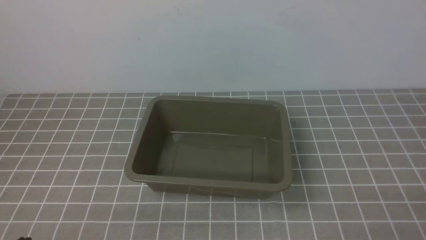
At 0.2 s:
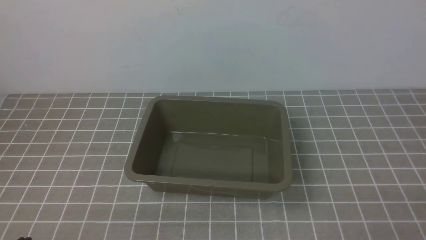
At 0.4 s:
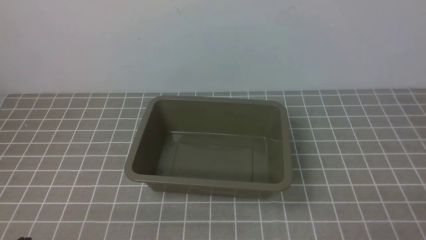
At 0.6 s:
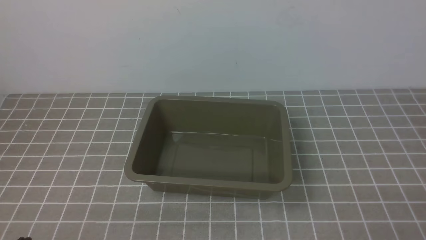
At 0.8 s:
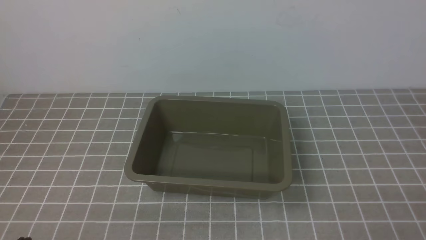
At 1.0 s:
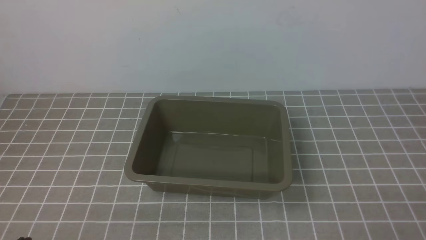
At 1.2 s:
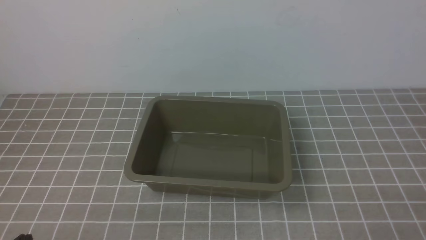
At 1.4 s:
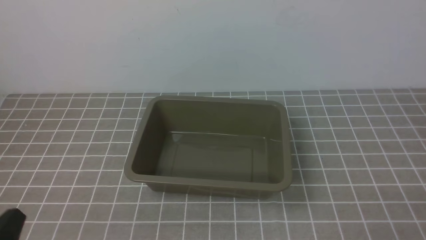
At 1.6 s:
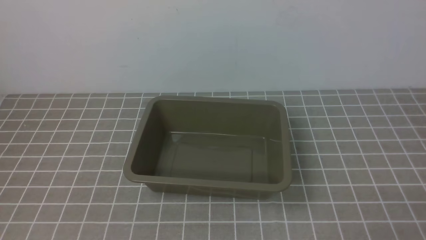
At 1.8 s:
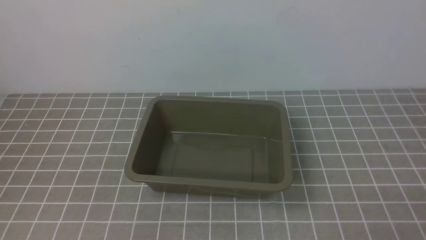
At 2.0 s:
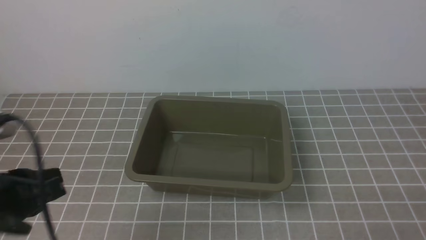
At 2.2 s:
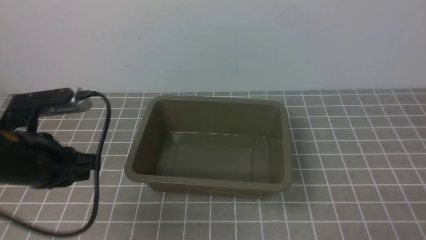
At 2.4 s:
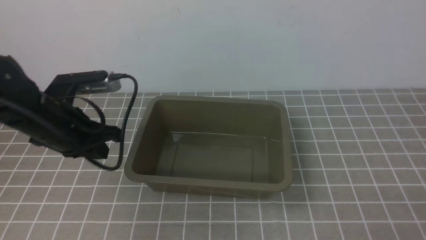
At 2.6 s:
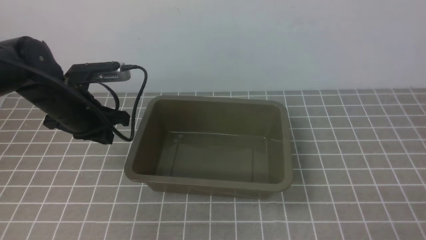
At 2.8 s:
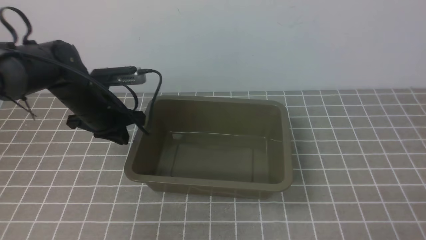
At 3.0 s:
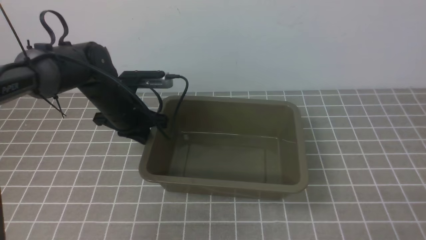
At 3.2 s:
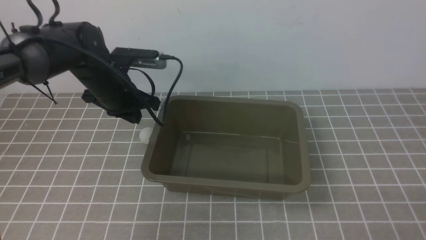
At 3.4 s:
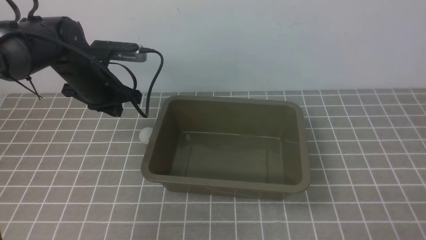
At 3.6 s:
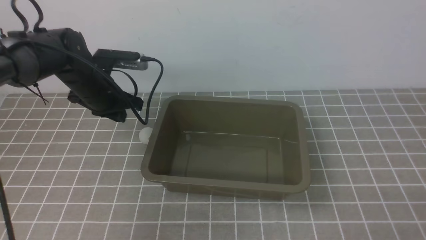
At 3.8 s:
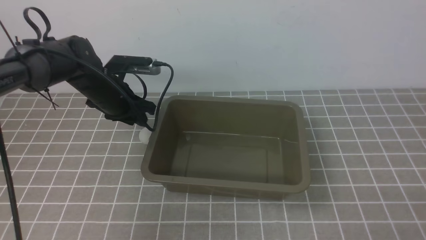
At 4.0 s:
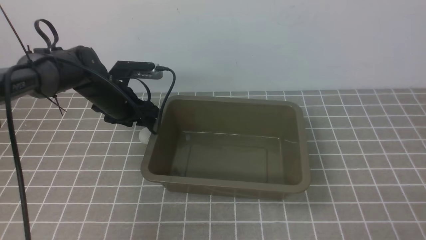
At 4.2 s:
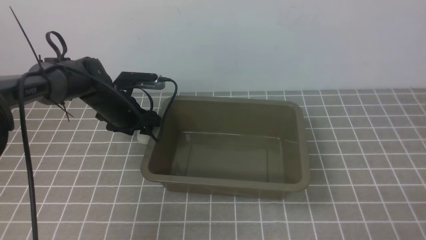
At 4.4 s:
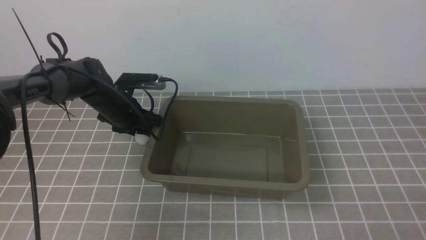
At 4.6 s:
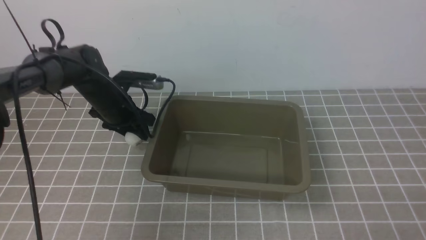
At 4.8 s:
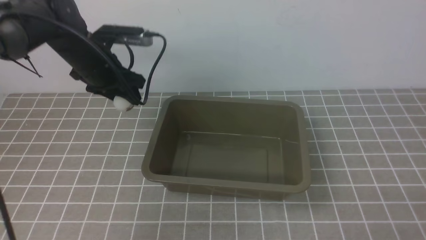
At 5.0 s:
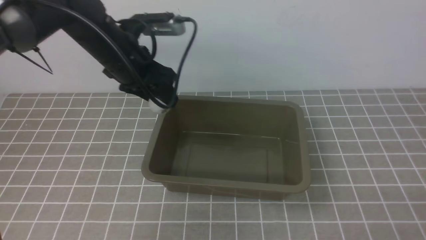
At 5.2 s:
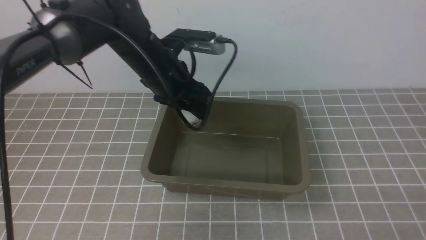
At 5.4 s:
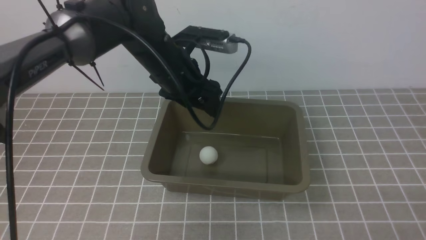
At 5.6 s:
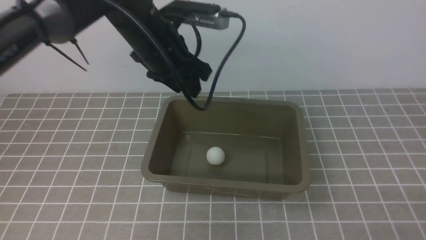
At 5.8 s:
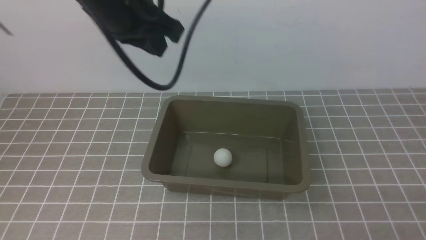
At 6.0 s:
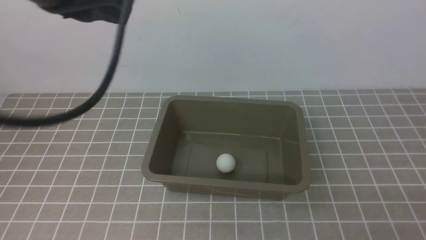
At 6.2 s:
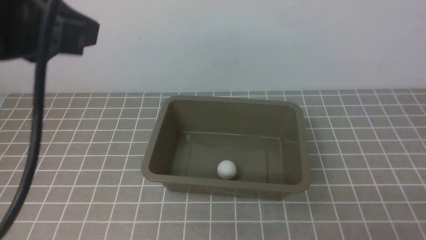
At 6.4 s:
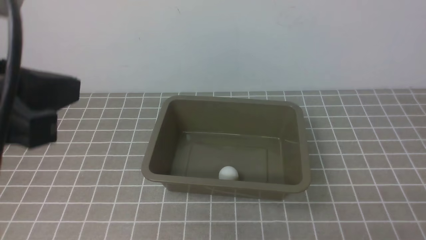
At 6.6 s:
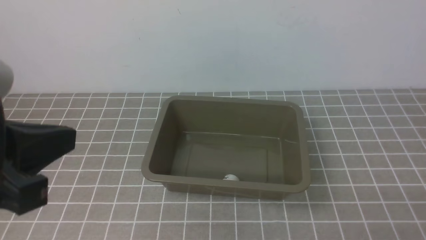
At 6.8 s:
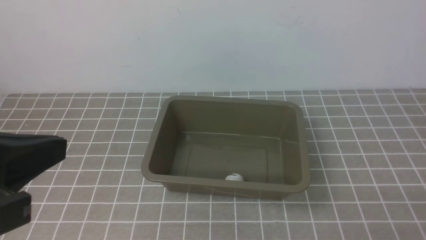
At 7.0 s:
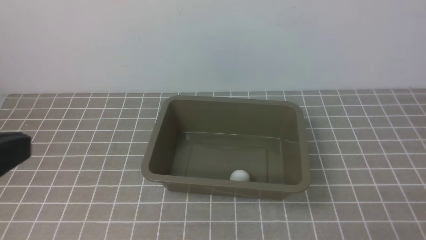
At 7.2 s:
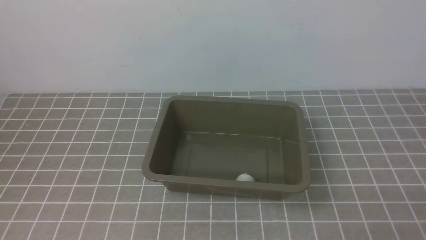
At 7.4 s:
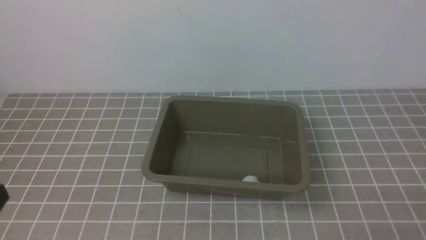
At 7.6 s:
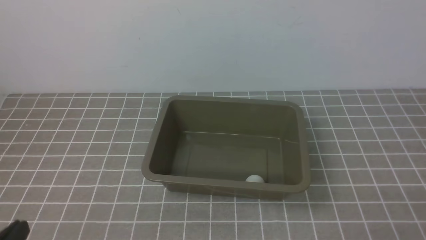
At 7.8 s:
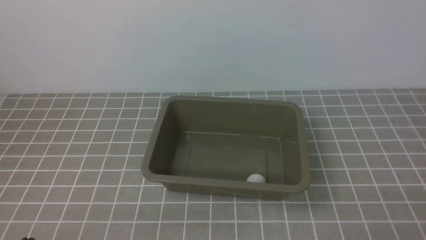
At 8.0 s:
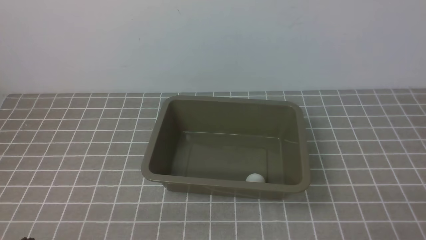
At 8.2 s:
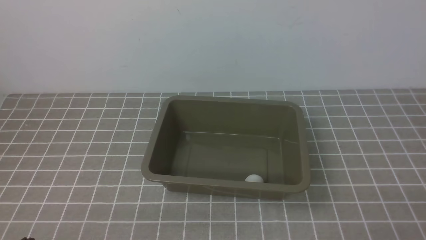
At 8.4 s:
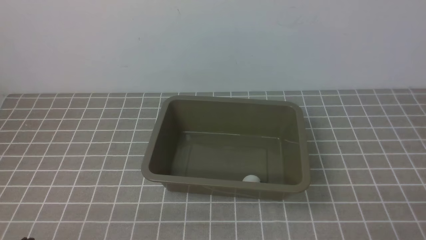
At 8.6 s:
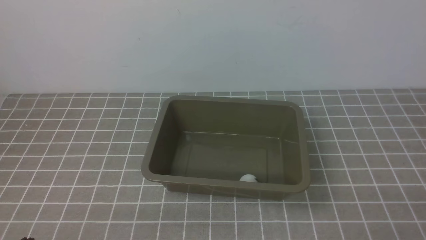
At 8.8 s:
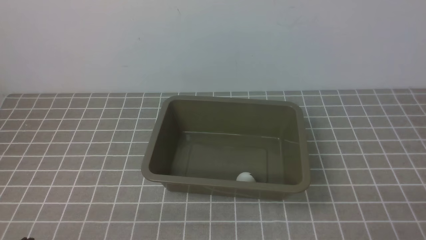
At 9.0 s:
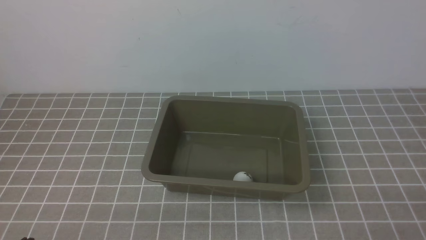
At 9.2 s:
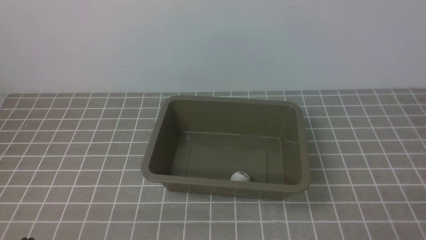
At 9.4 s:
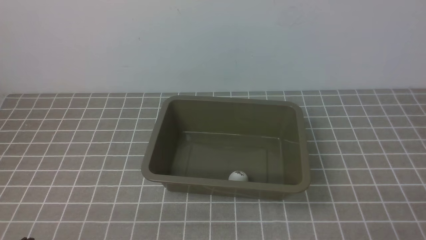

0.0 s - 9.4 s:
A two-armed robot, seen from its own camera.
Step, 0.0 s - 4.6 s: use the left arm to clamp the table tennis ball closest to it.
Step, 4.8 s - 5.4 s: use the left arm to put the table tennis ball into the box.
1.6 s - 3.2 s: The left gripper travels forward by about 35 cm.
3.2 s - 4.8 s: The left gripper reaches about 5 cm downward, then returns, and opens up.
4.8 s - 6.2 s: The left gripper goes about 35 cm upward and backward, and closes its fingers.
6.2 s - 7.8 s: The left gripper heads downward and backward, covering approximately 30 cm.

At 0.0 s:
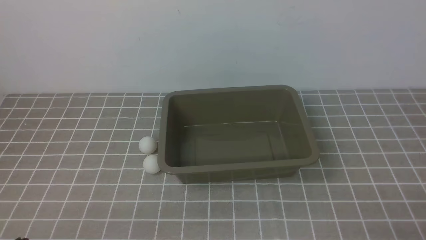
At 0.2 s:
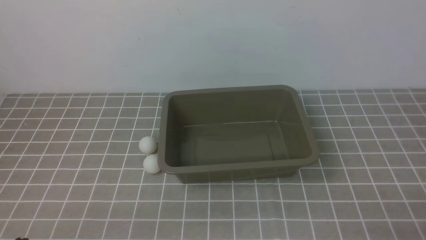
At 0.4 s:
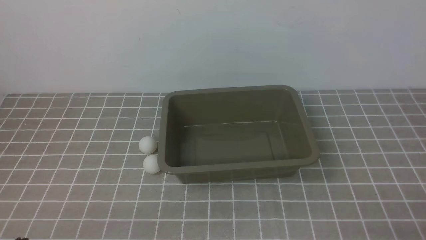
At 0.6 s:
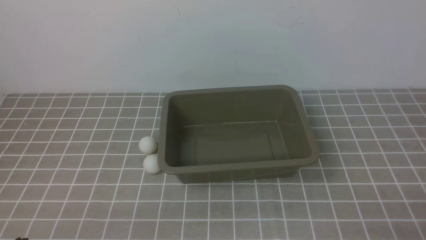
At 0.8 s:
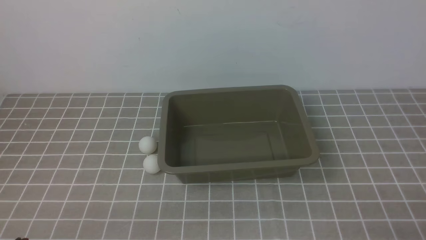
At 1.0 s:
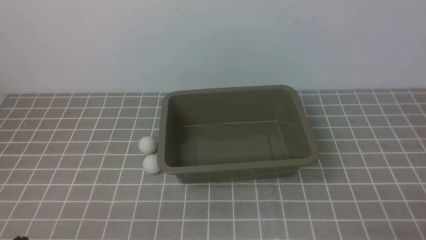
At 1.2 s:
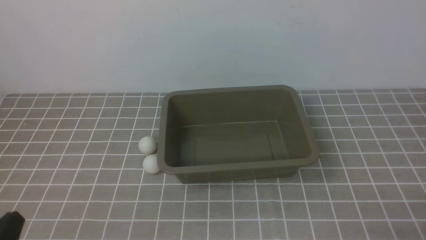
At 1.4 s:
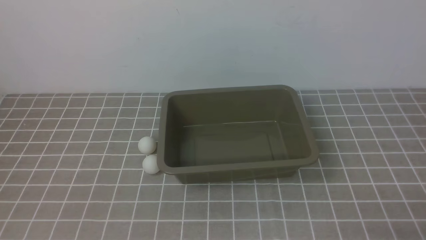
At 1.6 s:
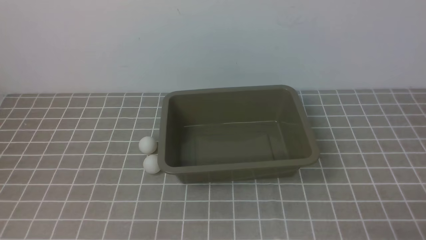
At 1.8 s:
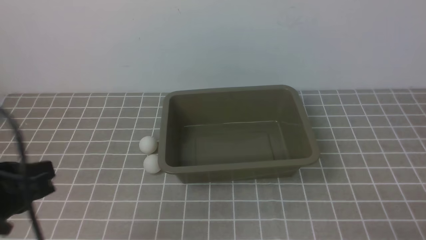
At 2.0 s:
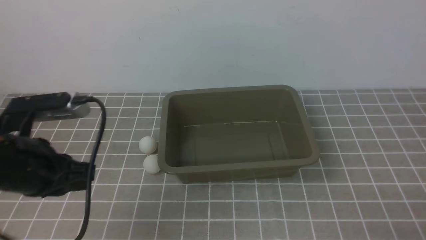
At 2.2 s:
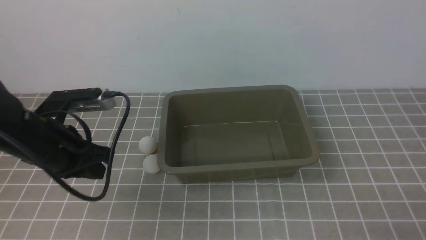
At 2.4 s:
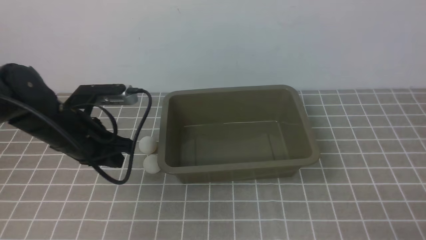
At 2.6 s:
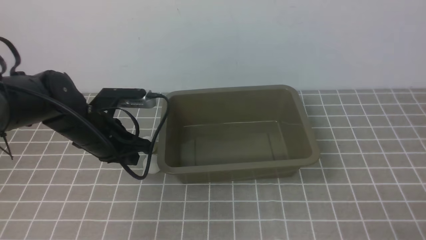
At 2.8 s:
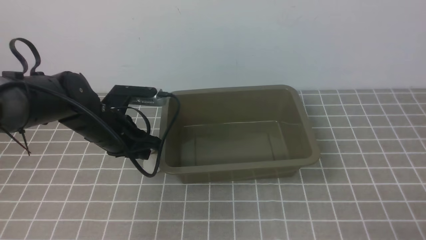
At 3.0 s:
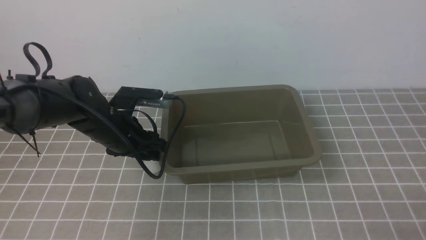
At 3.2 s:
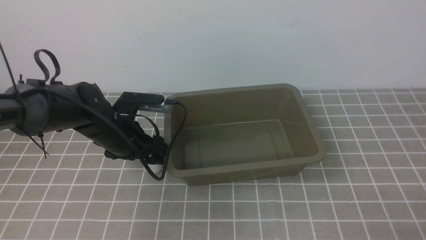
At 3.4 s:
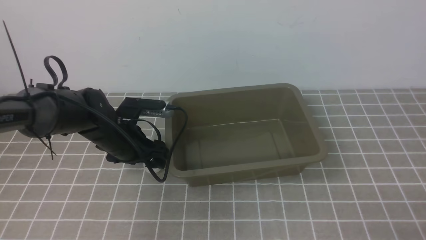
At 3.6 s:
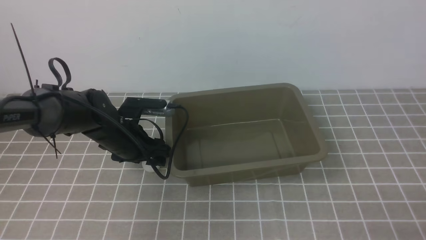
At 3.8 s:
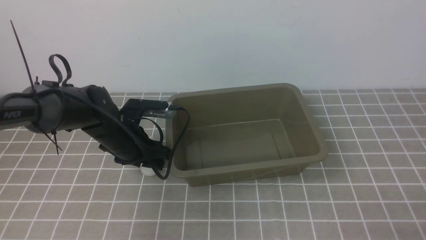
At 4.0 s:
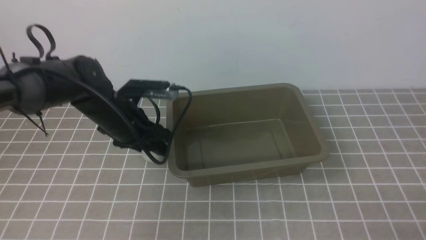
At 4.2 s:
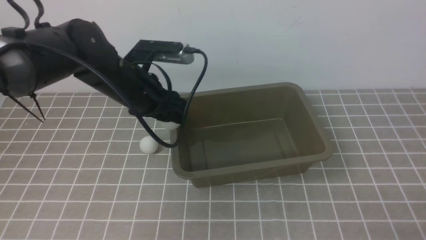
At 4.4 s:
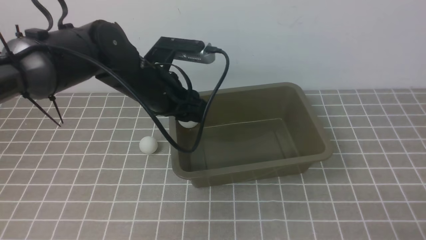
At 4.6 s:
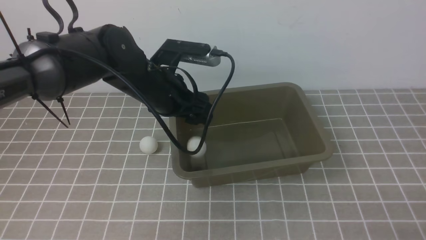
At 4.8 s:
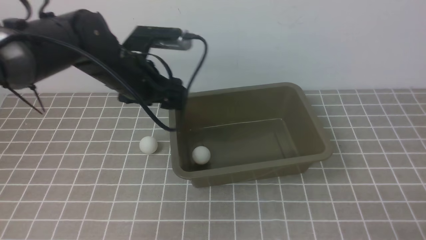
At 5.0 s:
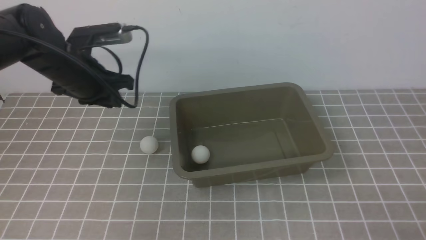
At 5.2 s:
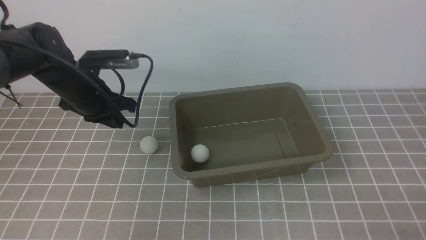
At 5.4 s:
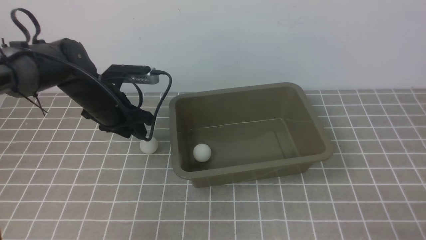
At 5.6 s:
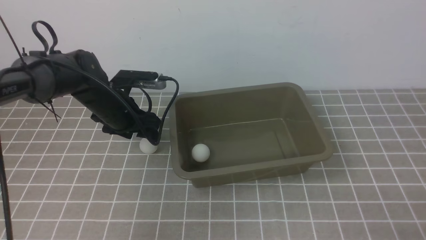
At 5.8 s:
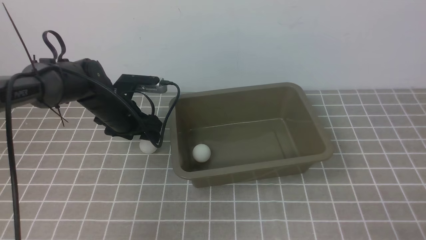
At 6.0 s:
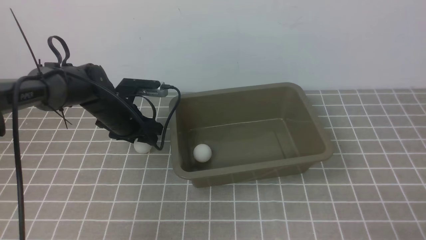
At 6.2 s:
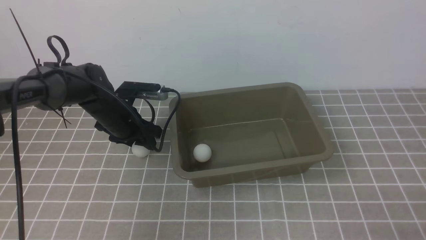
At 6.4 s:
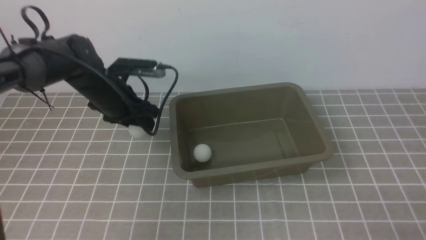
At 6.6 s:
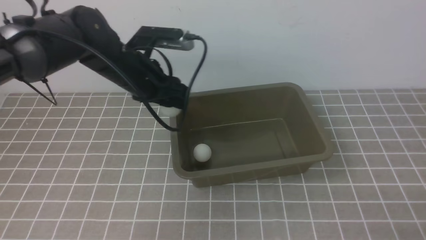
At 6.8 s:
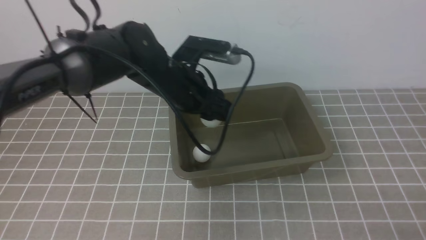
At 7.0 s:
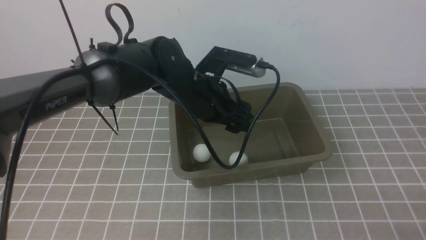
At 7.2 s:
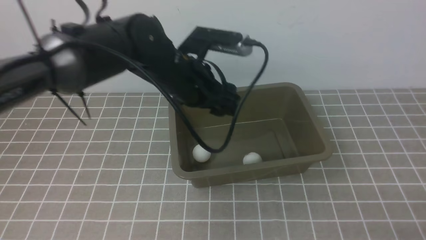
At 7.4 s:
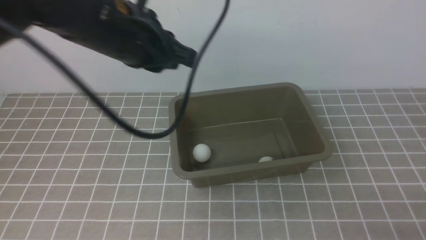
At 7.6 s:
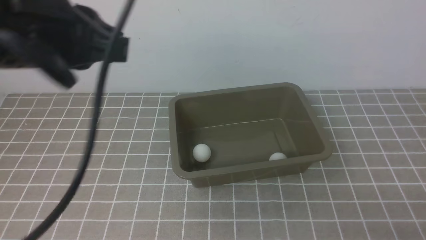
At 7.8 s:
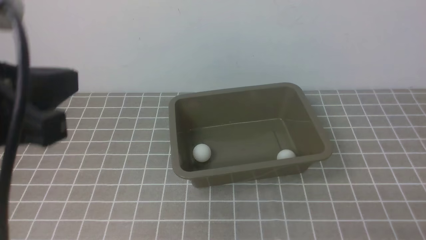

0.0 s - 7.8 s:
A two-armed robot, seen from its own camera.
Step, 0.0 s - 4.0 s: use the left arm to clamp the table tennis ball closest to it.
Step, 4.4 s - 4.6 s: use the left arm to put the table tennis ball into the box.
Step, 5.0 s - 6.4 s: use the left arm to clamp the table tennis ball closest to it.
Step, 6.6 s - 7.0 s: use the left arm to put the table tennis ball into the box.
1.6 s - 3.2 s: The left gripper travels forward by roughly 30 cm, and opens its fingers.
3.2 s - 4.6 s: The left gripper shifts roughly 10 cm upward and to the right.
4.6 s - 6.2 s: The left gripper goes approximately 15 cm downward, to the left and forward, and closes and opens again.
6.2 s - 7.8 s: The left gripper heads backward and upward, covering roughly 35 cm, and closes.
